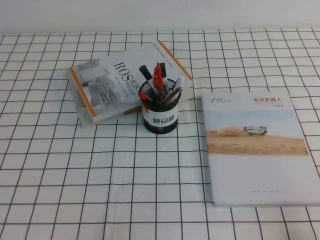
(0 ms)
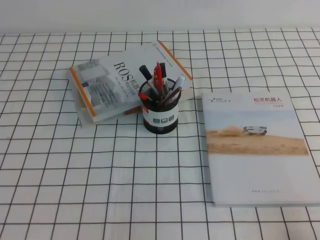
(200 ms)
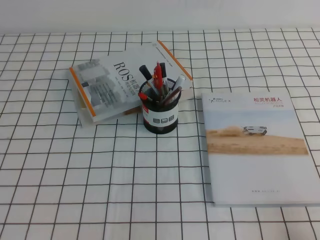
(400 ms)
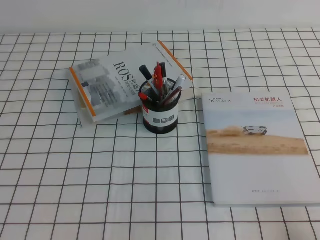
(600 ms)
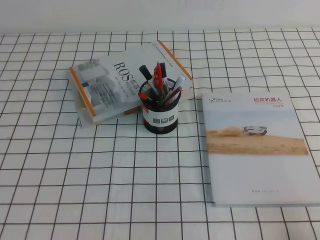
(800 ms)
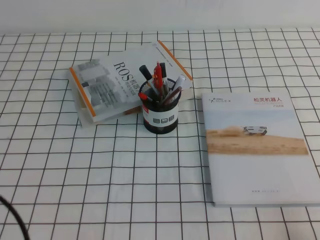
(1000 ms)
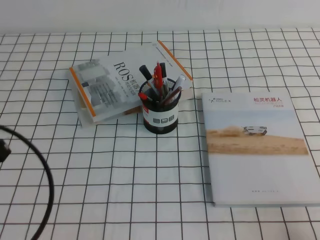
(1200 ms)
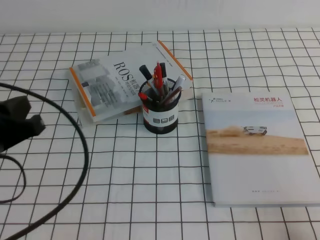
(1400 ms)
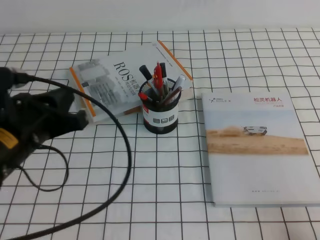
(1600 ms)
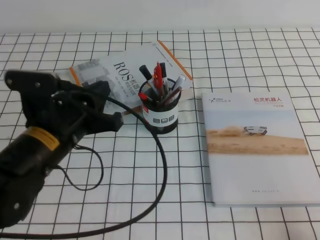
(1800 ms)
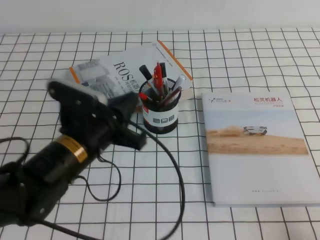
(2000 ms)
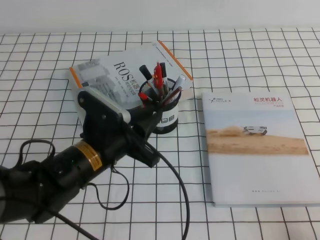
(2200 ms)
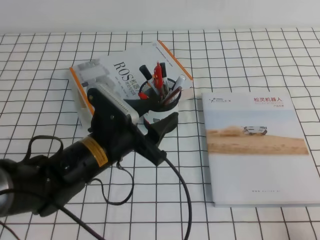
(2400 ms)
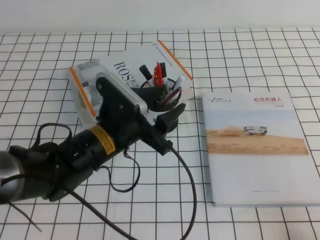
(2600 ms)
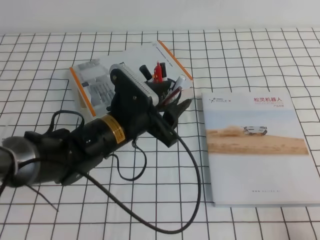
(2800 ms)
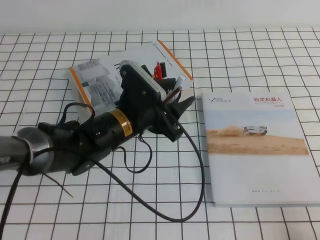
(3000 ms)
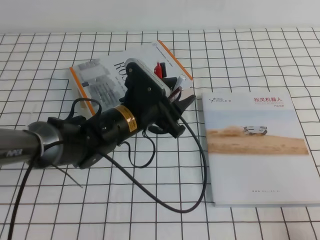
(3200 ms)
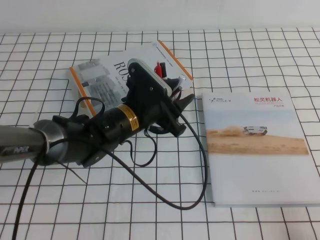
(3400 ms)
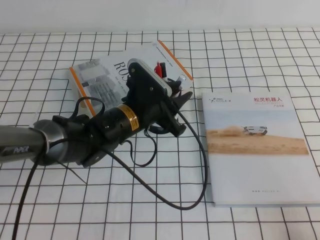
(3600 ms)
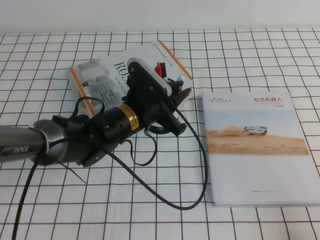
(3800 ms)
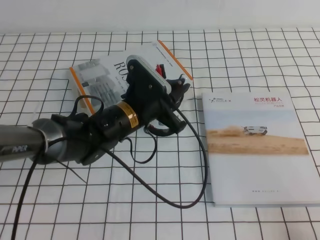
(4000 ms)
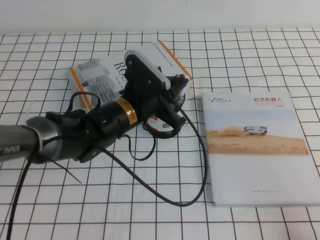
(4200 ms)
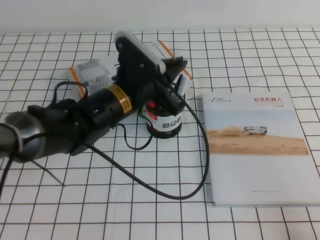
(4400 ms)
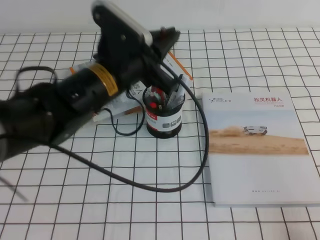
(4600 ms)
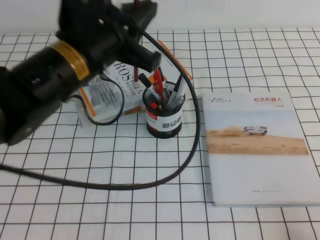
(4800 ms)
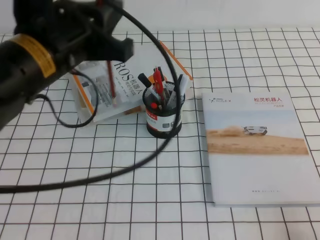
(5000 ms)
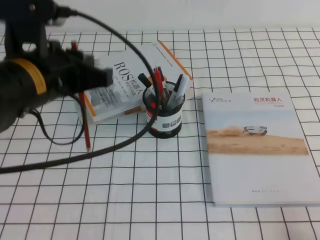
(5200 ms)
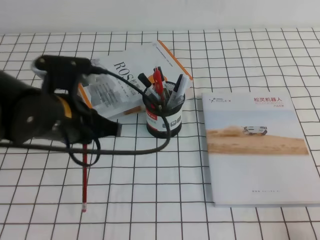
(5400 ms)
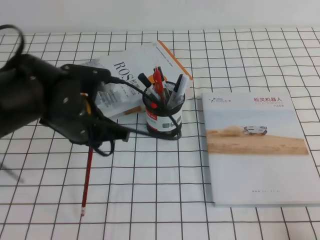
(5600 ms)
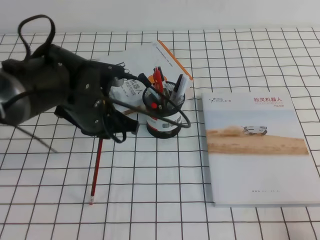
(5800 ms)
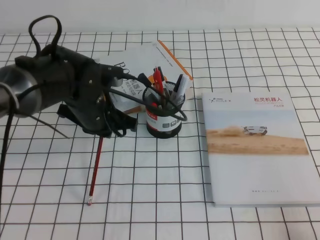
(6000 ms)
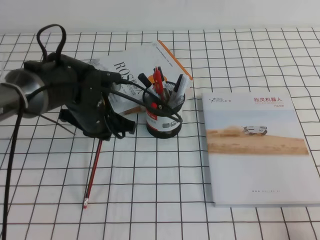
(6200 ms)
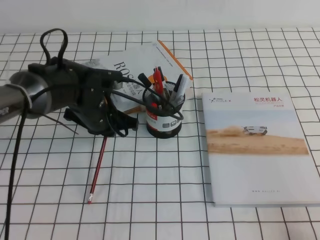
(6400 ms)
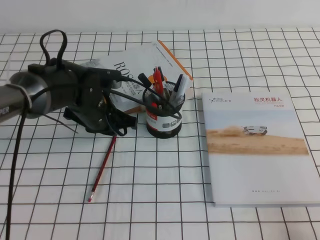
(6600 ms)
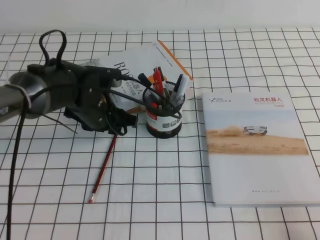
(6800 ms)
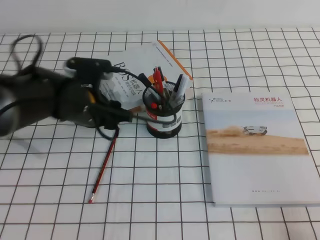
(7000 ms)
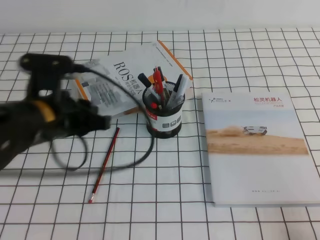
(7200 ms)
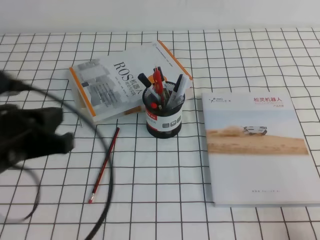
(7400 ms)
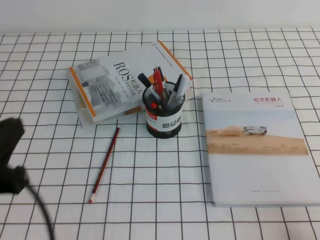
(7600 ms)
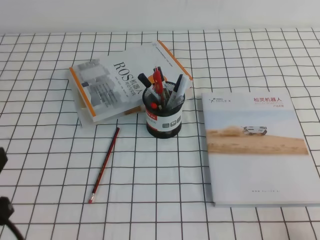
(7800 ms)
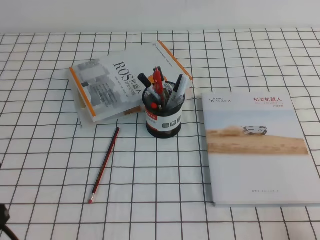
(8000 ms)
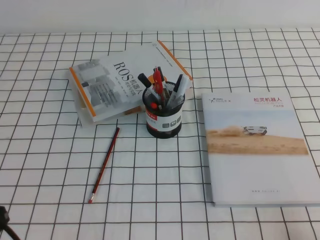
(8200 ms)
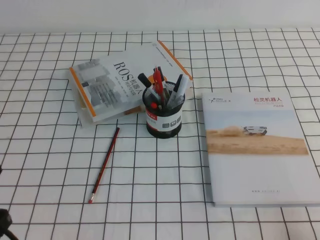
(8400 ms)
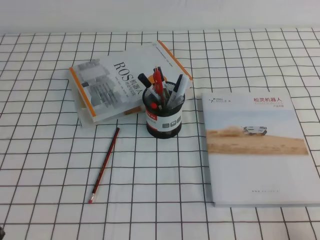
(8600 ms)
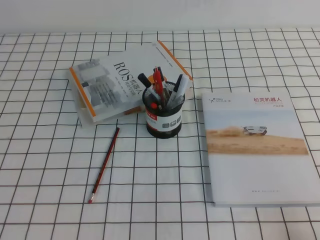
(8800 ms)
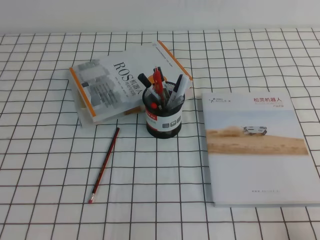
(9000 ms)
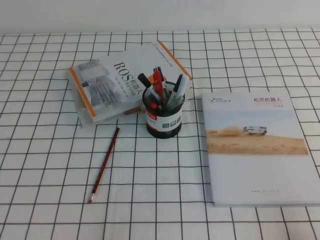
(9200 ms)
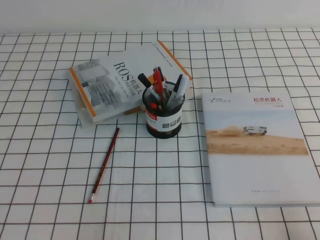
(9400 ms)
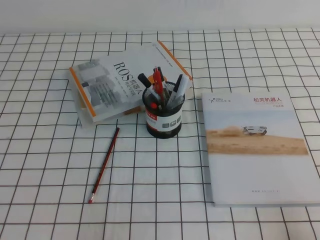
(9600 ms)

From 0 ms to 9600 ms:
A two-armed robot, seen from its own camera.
Step, from 0 ms to 9600 ms: Pick up the pen from the pen holder.
From 0 ms to 1600 ms: The left gripper moves forward, upward and to the right, approximately 20 cm.
From 1600 ms to 3200 ms: The left gripper goes some 20 cm to the right, forward and downward, and opens up.
From 3200 ms to 4800 ms: The left gripper shifts approximately 15 cm upward, and closes up.
From 4800 ms to 6400 ms: The left gripper goes some 15 cm downward and forward.
From 6400 ms to 8000 ms: The left gripper moves backward and to the left, approximately 30 cm, and opens, then closes again.
From 8000 ms to 9600 ms: The left gripper travels downward by some 10 cm.

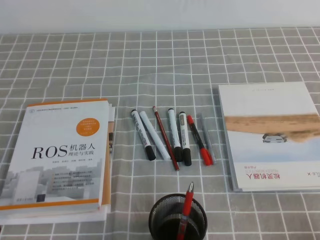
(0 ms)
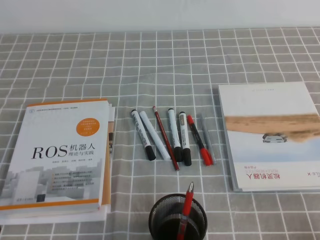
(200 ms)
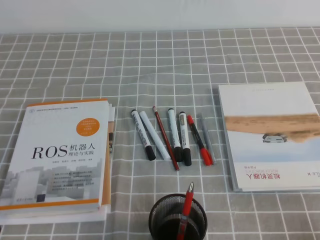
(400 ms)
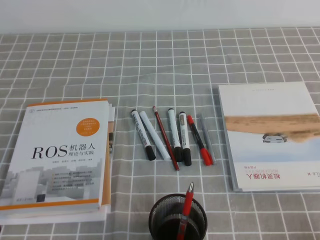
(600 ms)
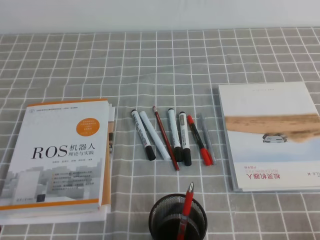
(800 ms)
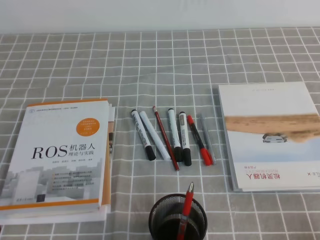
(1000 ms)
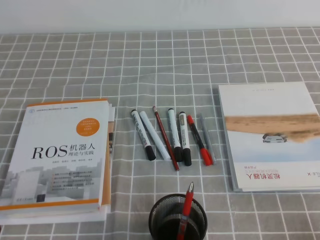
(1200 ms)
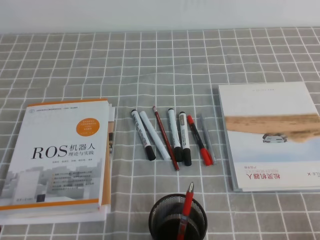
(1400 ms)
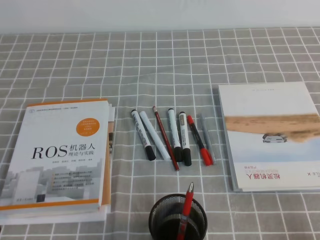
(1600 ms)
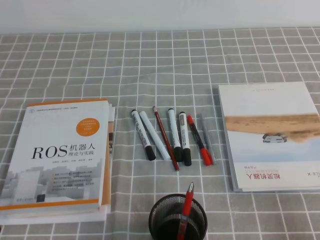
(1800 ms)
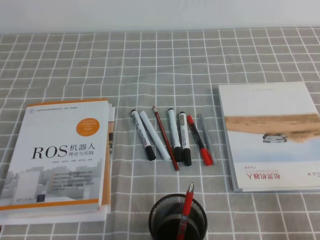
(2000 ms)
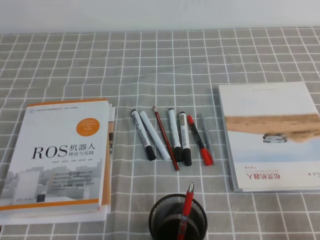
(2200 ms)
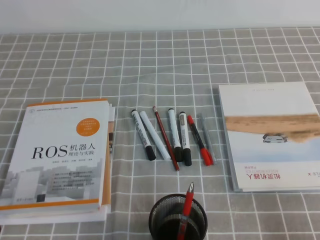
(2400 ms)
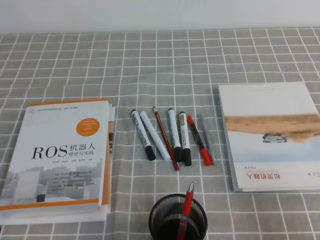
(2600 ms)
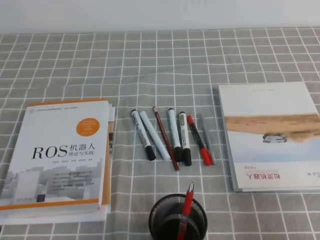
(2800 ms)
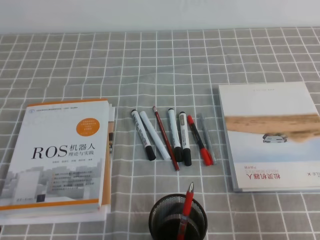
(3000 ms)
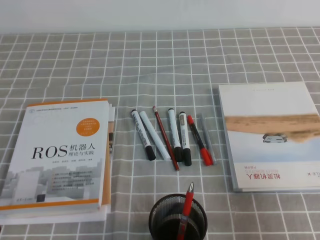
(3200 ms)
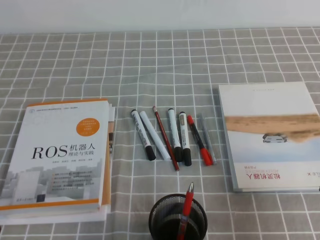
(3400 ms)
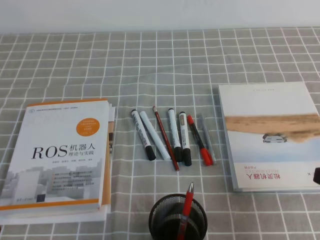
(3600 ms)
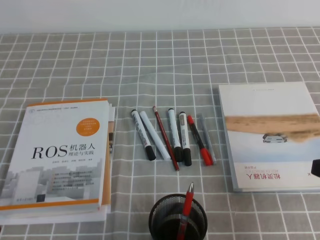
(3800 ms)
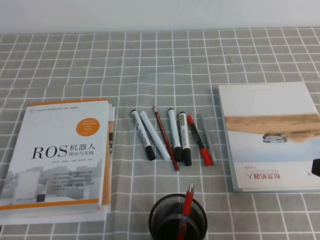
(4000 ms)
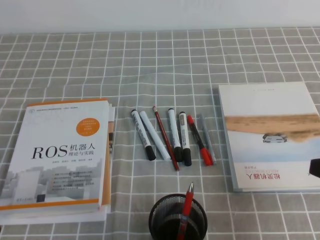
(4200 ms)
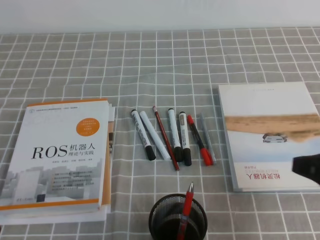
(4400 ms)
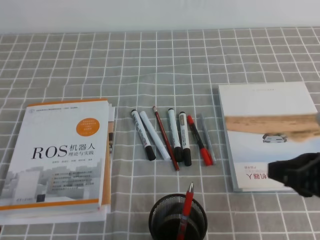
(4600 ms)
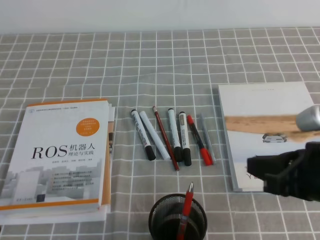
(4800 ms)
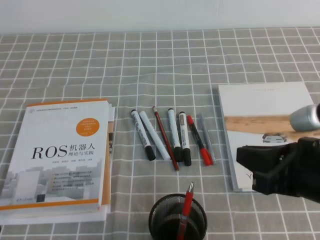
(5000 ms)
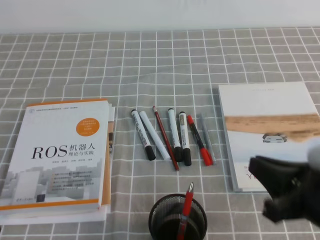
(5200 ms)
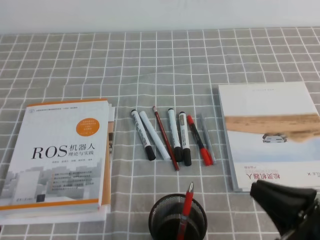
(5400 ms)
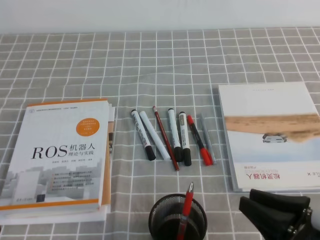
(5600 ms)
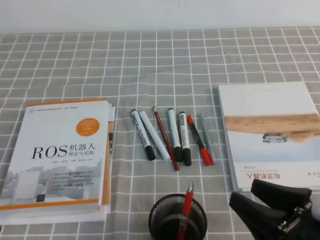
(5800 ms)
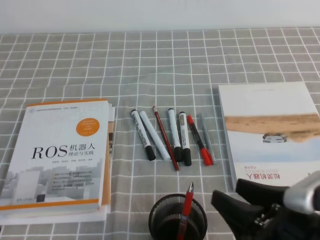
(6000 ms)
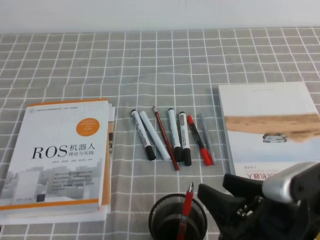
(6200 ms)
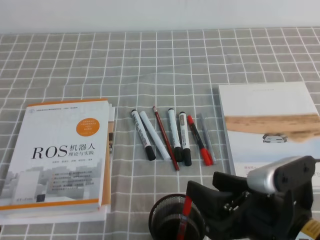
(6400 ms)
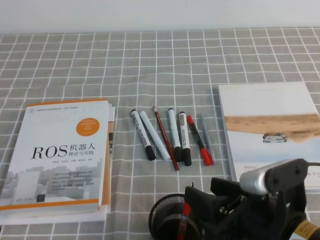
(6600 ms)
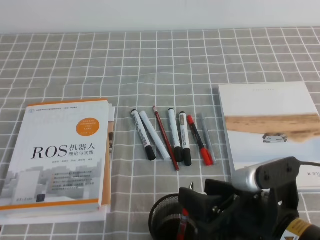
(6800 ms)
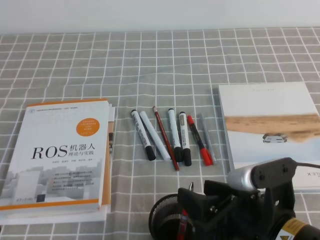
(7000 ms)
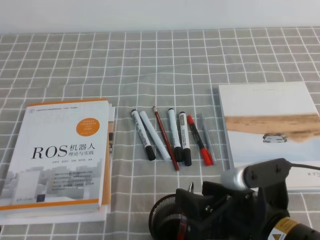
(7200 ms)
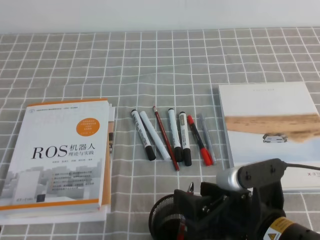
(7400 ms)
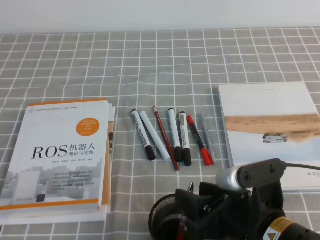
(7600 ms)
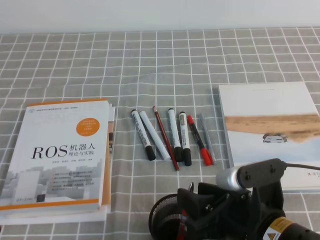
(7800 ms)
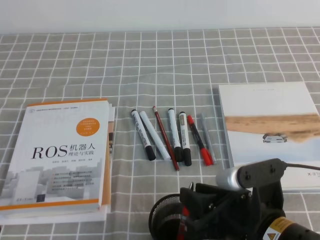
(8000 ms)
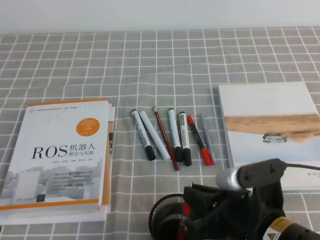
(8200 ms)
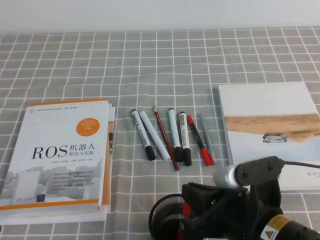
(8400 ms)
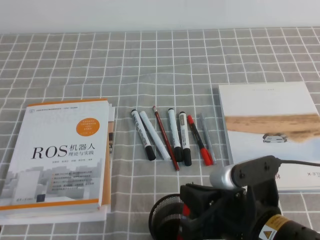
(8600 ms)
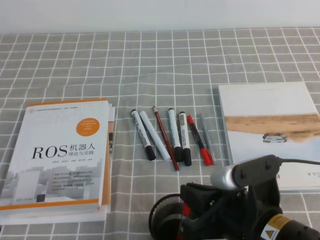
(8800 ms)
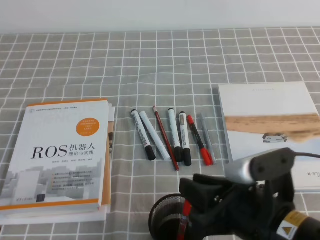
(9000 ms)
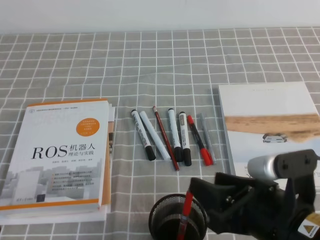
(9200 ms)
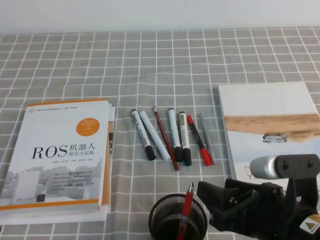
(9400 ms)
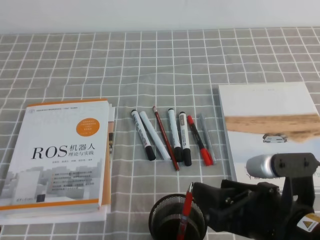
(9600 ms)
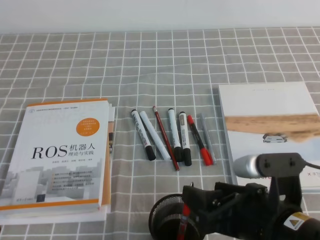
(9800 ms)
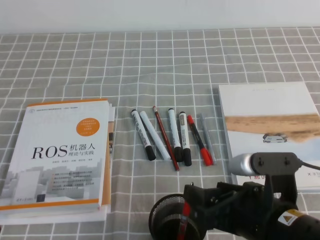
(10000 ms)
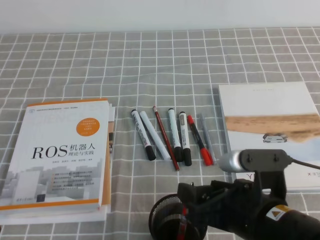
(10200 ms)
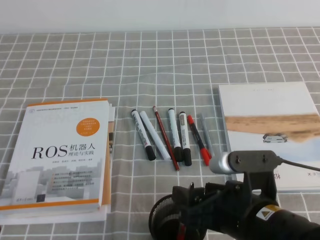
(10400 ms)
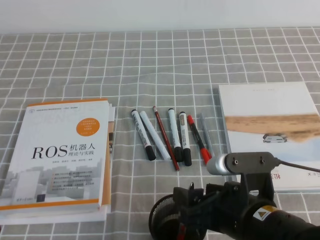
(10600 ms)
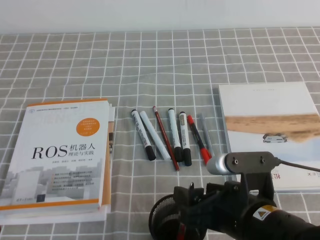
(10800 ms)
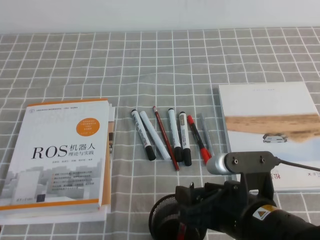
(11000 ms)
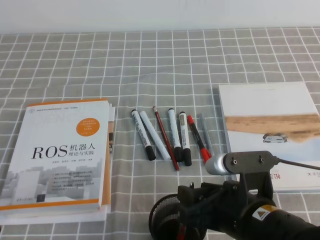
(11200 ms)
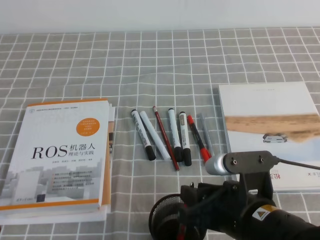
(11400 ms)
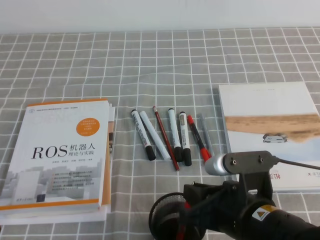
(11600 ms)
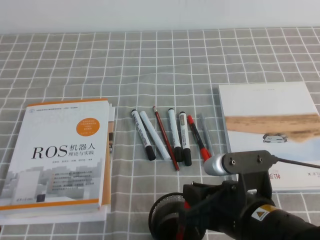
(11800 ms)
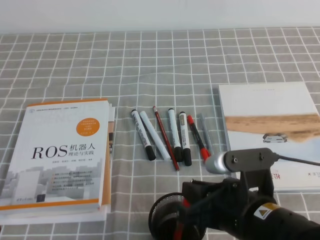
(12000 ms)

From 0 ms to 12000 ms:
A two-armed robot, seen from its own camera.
From 1600 ms to 3000 ms: The right gripper goes roughly 5 cm upward.
From 3000 ms to 4400 ms: The right gripper travels forward by some 10 cm.
From 4400 ms to 6000 ms: The right gripper heads to the left and backward, covering approximately 10 cm, and opens up.
From 6000 ms to 7600 ms: The right gripper is displaced to the left by roughly 5 cm.
From 7600 ms to 9000 ms: The right gripper closes.
From 9000 ms to 10400 ms: The right gripper opens.
From 10400 ms to 12000 ms: The right gripper closes up.

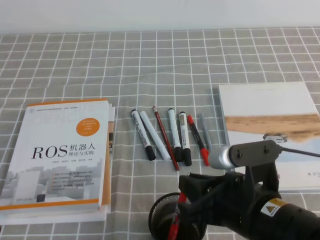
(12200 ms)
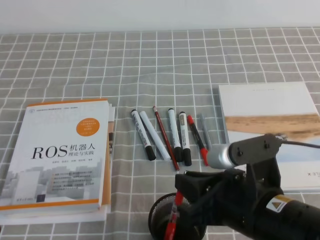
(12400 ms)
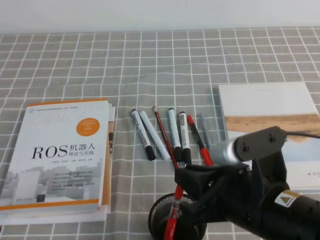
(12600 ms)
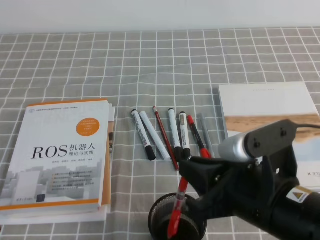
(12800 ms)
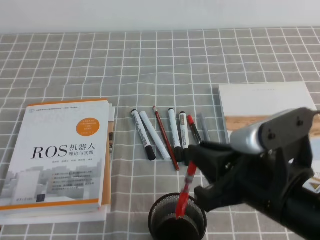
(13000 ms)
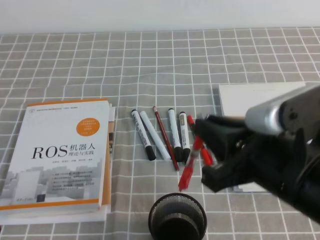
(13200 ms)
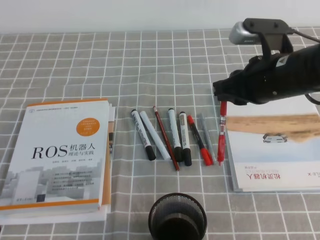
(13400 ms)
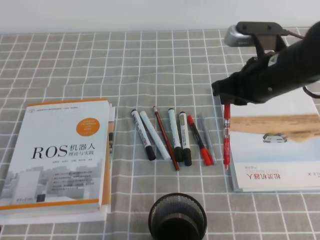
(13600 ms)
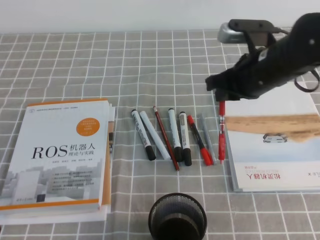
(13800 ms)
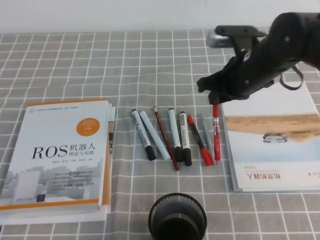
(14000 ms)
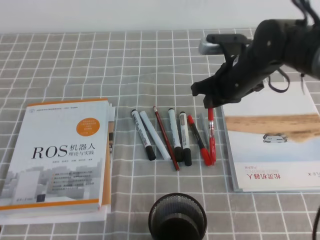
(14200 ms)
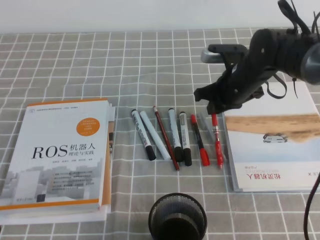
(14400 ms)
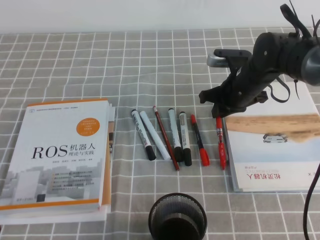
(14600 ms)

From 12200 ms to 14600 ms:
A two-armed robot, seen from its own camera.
From 12200 ms to 13400 ms: The right gripper heads forward and upward, covering roughly 15 cm.
From 13400 ms to 14600 ms: The right gripper moves forward and downward, roughly 20 cm.
